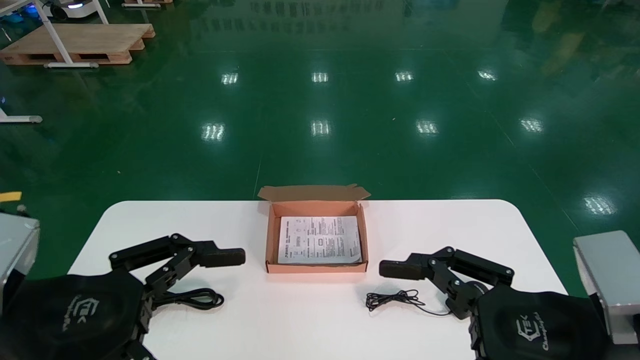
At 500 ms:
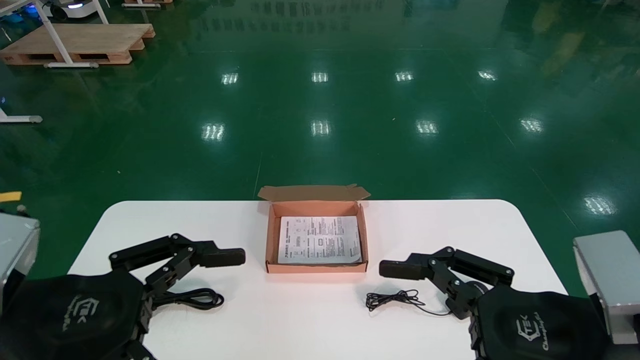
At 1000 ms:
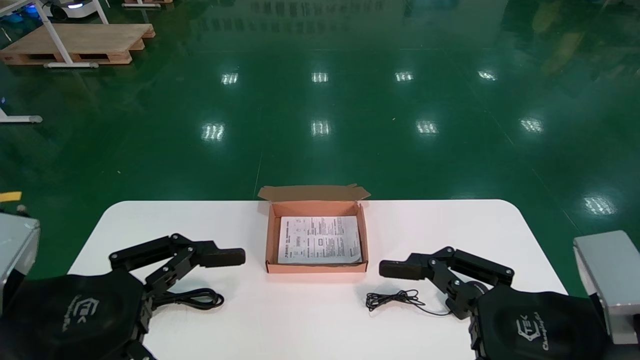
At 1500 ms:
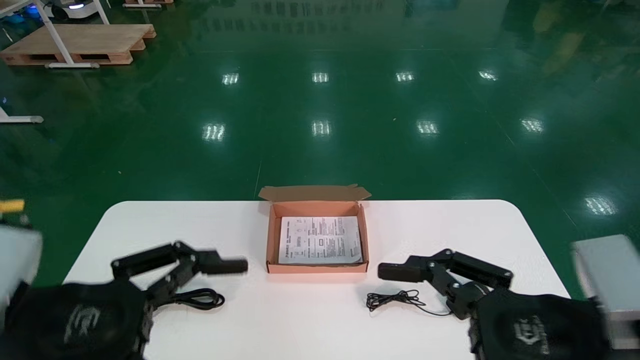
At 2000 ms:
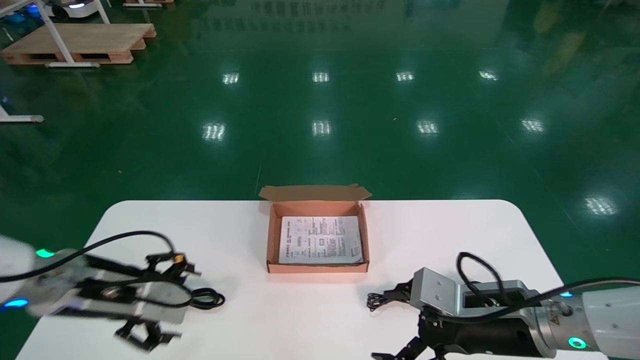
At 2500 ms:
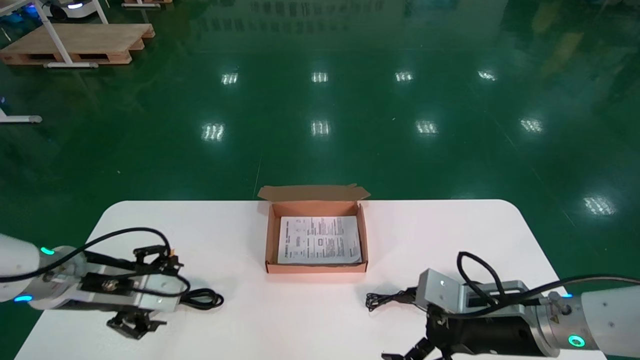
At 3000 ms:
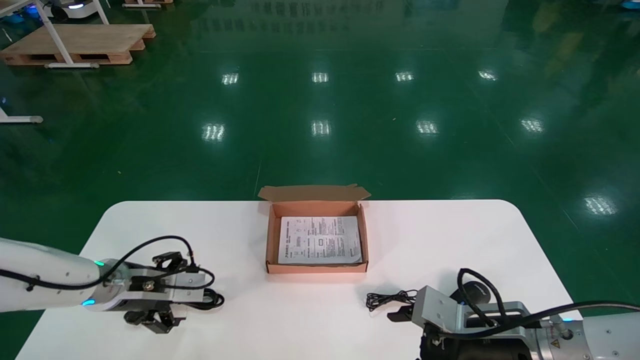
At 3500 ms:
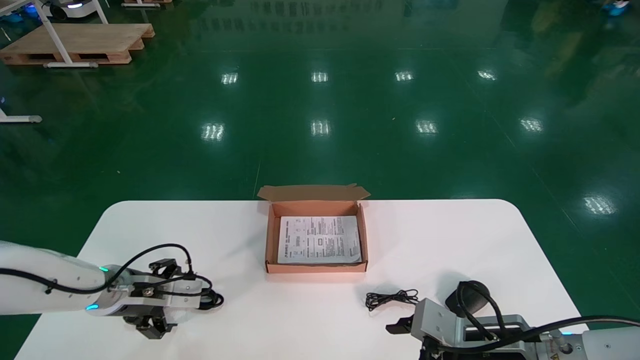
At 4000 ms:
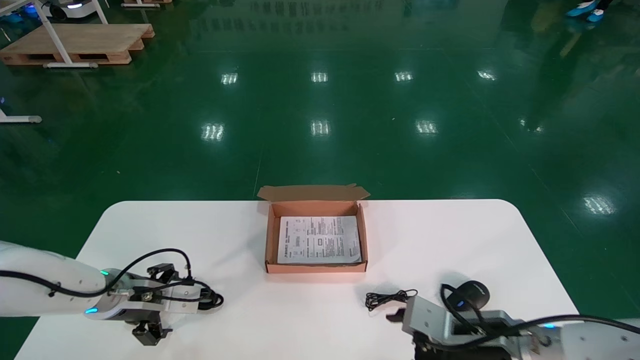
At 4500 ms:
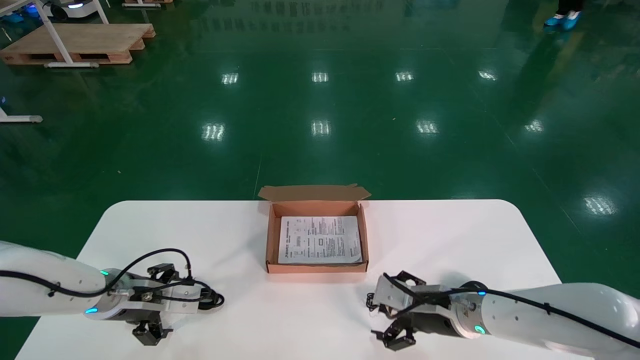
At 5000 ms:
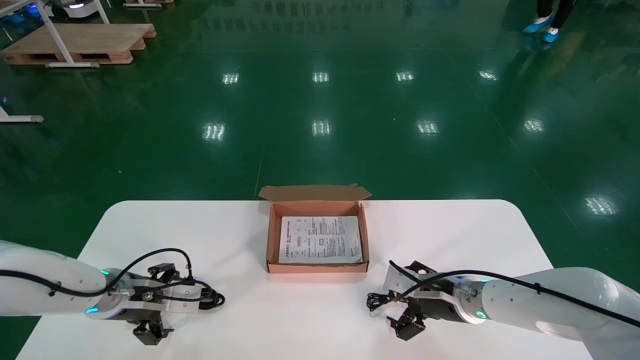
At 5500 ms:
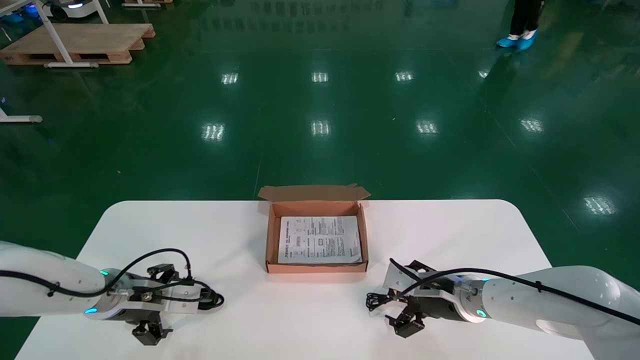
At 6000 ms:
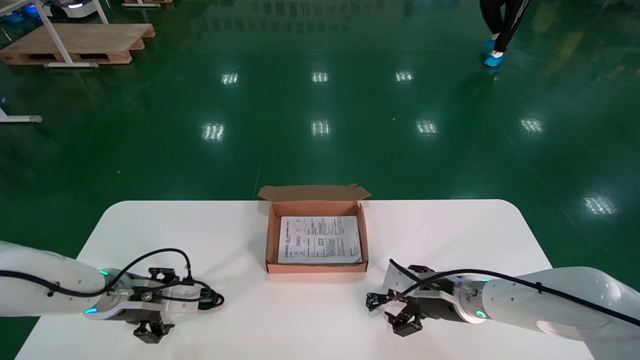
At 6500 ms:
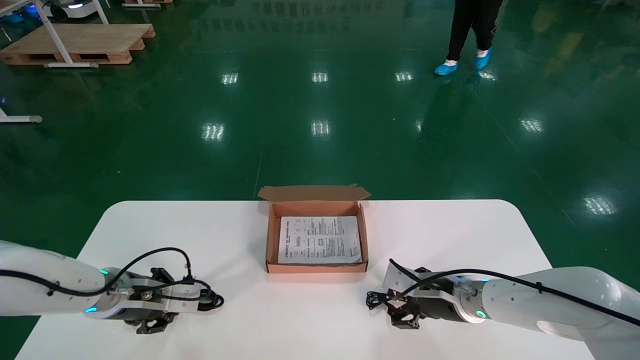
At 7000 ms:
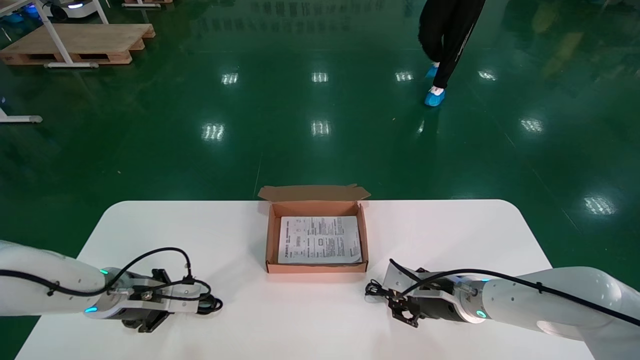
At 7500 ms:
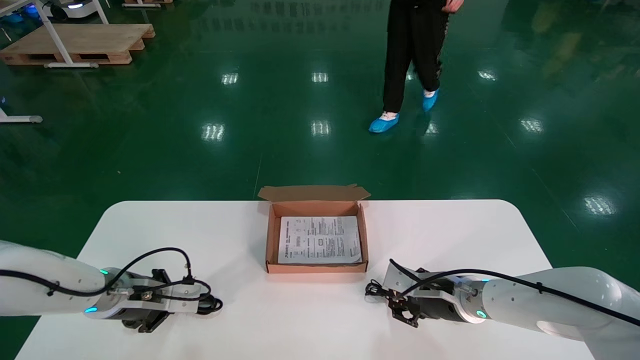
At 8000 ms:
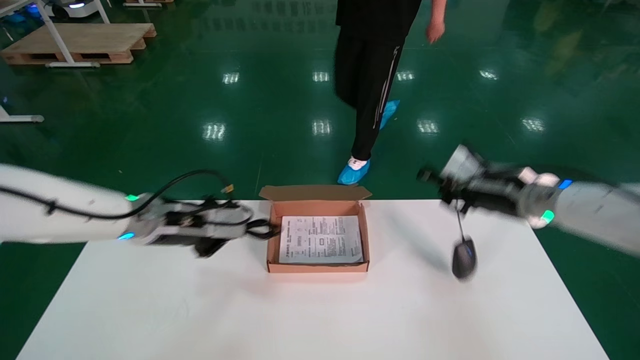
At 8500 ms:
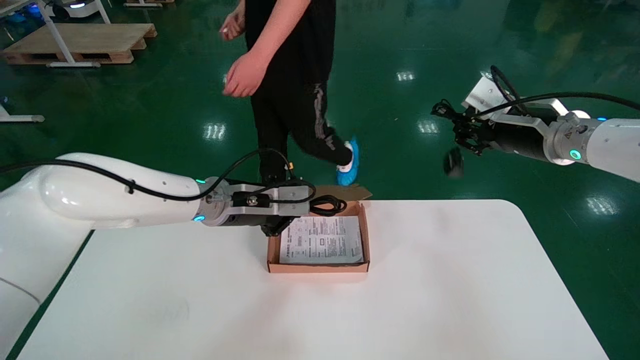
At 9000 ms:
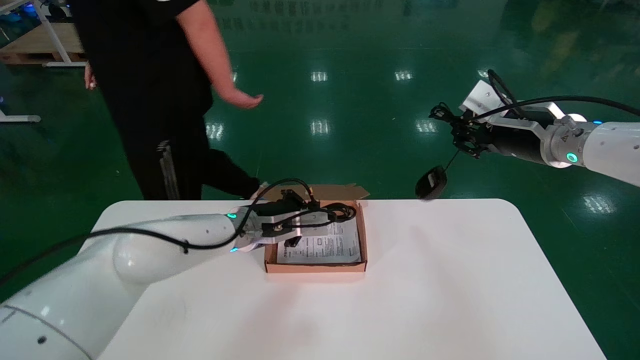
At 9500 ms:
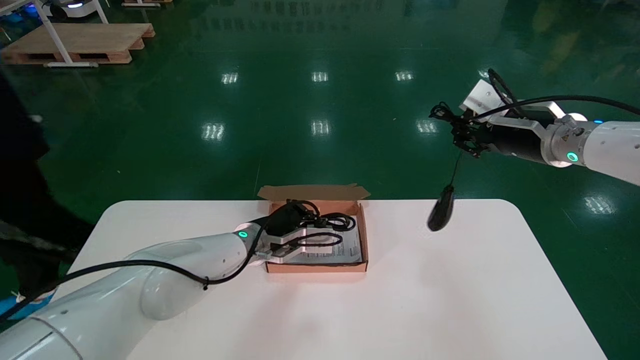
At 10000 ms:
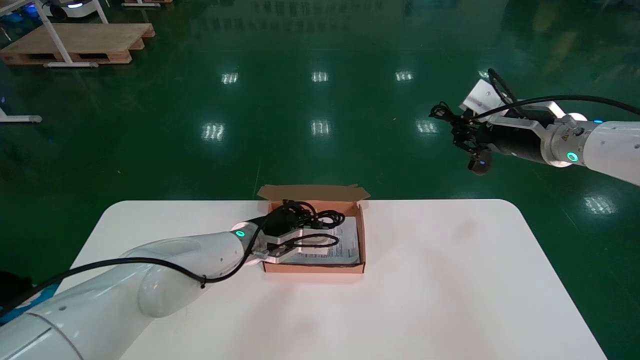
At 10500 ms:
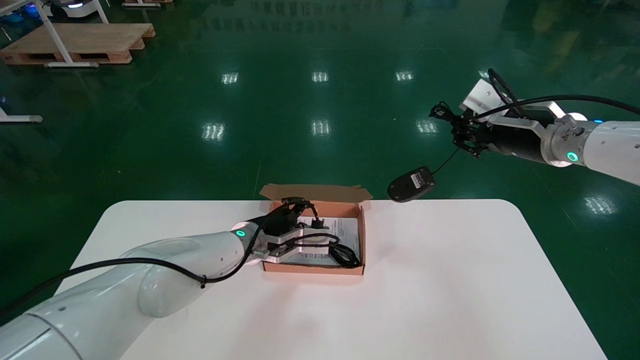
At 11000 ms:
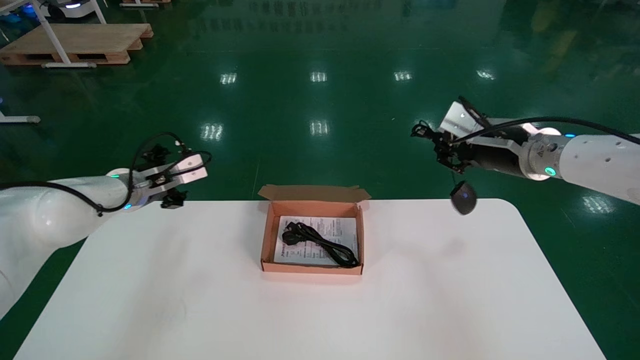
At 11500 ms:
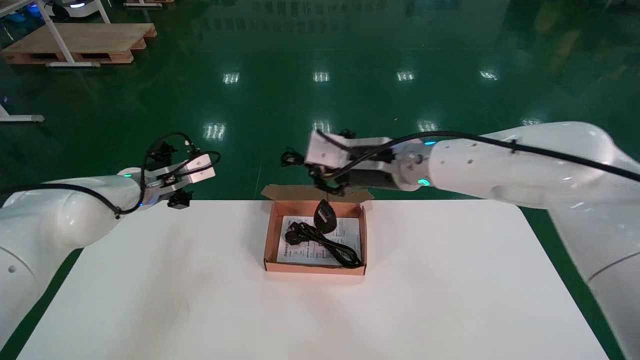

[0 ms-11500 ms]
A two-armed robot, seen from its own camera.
Step, 2000 ms to 8000 ms: Simultaneously pick up the mouse and power cord from the accessory packaging area.
0 ms to 2000 ms: The right gripper travels forward and downward by about 15 cm, while the left gripper is displaced forward by approximately 10 cm.
2000 ms to 4000 ms: The left gripper shifts approximately 15 cm forward and downward. Meanwhile the right gripper moves downward, about 5 cm.
4000 ms to 6000 ms: The right gripper heads forward, covering some 10 cm.
6000 ms to 7500 ms: The right gripper closes its fingers; the left gripper closes its fingers.
7500 ms to 9500 ms: The right gripper shifts about 25 cm upward. The left gripper shifts about 20 cm to the right.
9500 ms to 11500 ms: The right gripper goes about 20 cm to the left. Meanwhile the left gripper goes approximately 20 cm to the left and upward, and opens.

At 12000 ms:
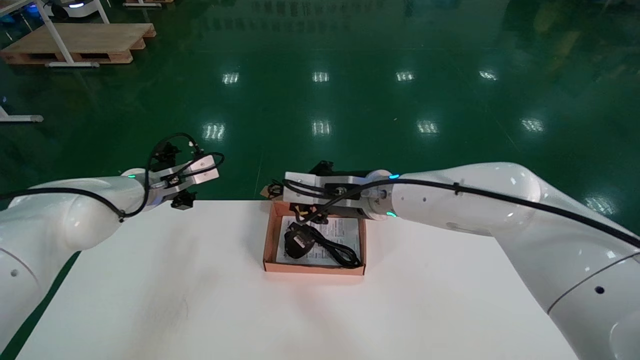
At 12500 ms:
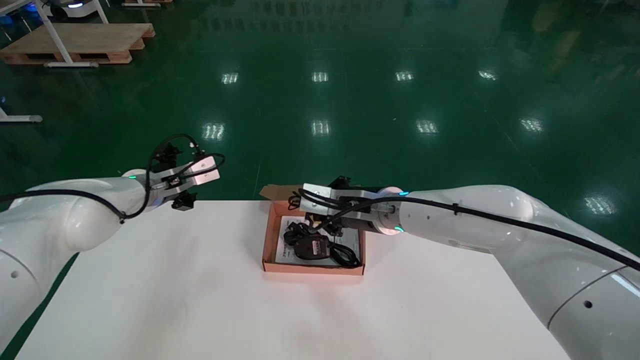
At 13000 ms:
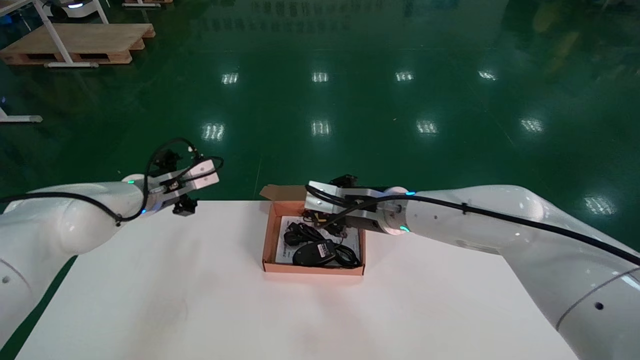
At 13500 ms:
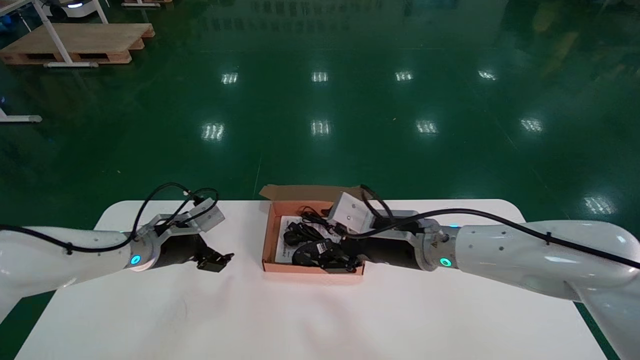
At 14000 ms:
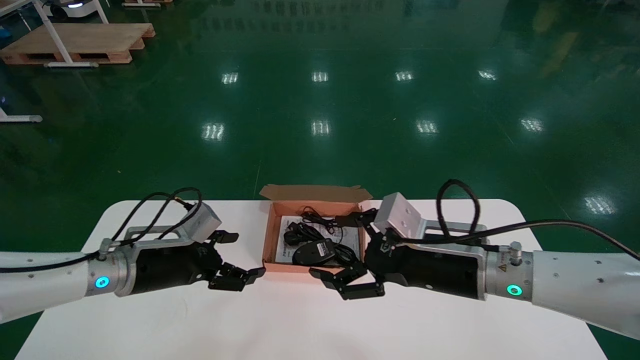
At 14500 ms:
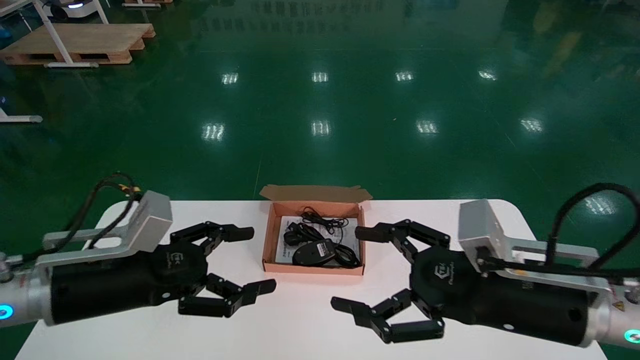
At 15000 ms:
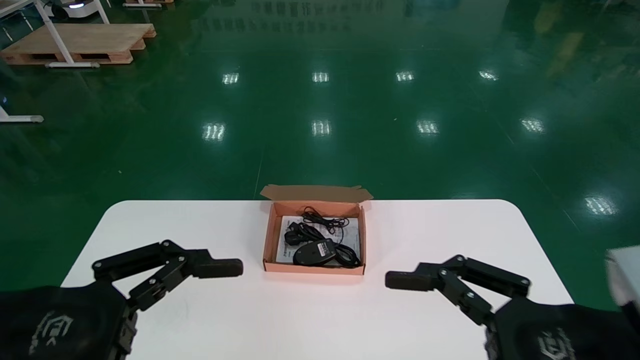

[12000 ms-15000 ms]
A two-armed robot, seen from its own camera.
12000 ms to 13500 ms: The right gripper shifts approximately 10 cm to the right and downward, and opens up. The left gripper goes roughly 10 cm downward.
13500 ms to 15000 ms: The right gripper is displaced backward and to the right by about 25 cm, and opens; the left gripper travels backward by some 30 cm.
